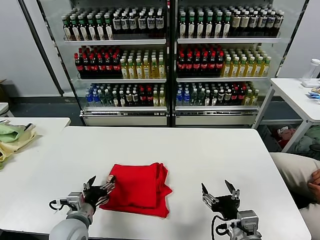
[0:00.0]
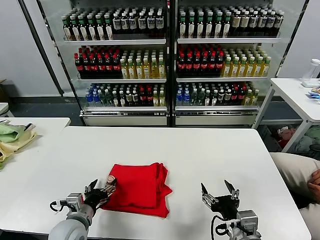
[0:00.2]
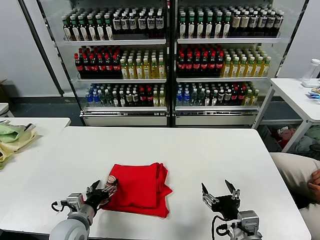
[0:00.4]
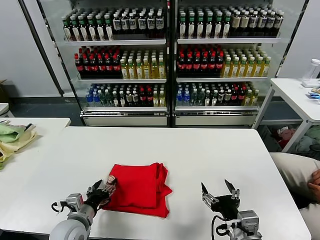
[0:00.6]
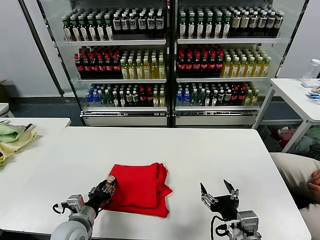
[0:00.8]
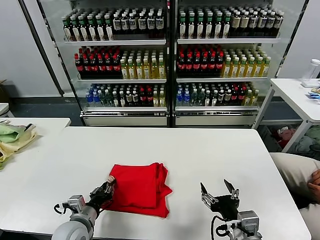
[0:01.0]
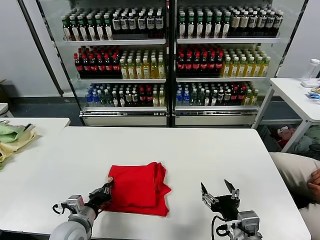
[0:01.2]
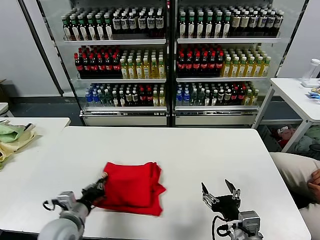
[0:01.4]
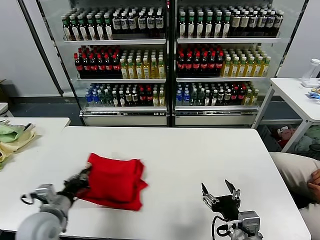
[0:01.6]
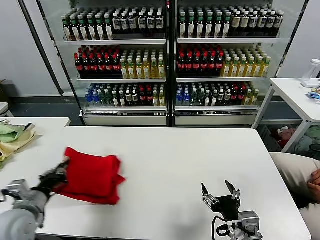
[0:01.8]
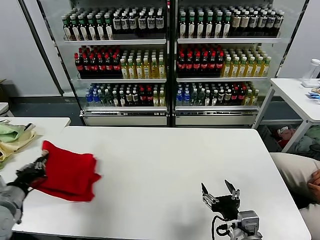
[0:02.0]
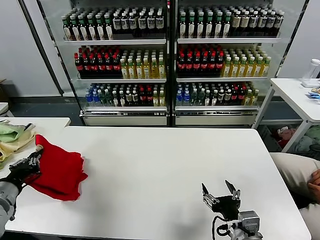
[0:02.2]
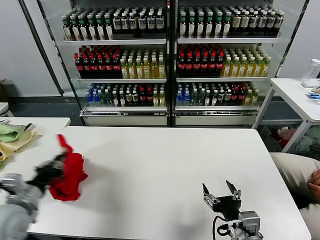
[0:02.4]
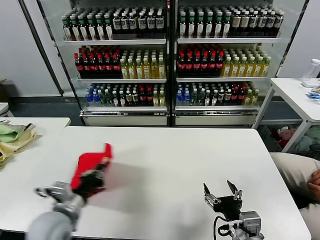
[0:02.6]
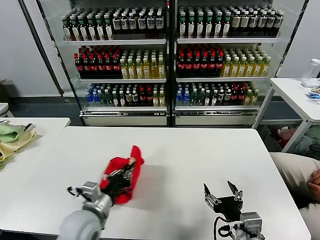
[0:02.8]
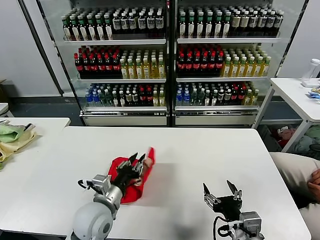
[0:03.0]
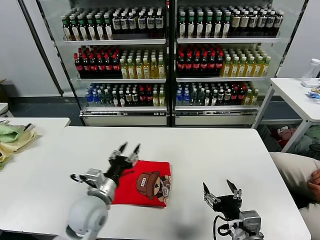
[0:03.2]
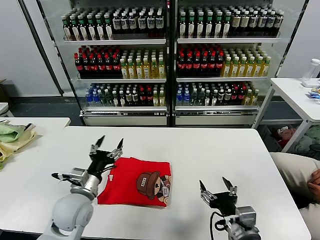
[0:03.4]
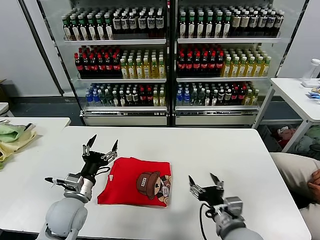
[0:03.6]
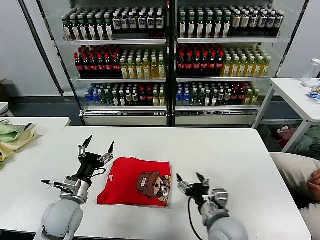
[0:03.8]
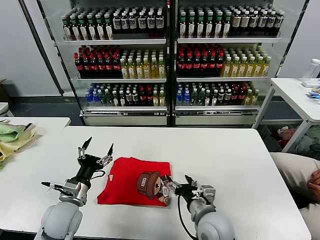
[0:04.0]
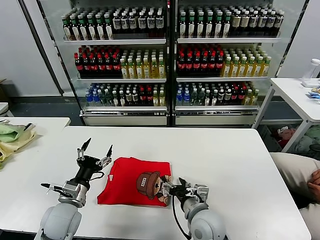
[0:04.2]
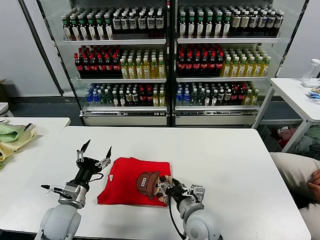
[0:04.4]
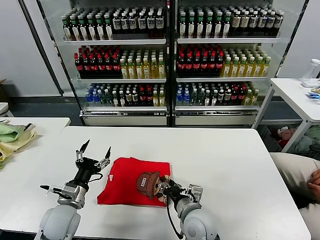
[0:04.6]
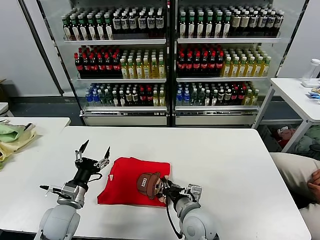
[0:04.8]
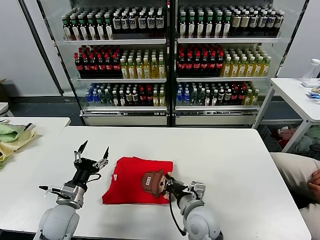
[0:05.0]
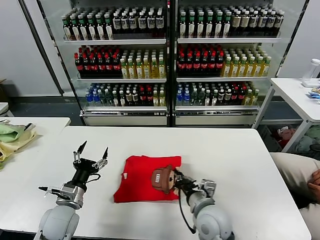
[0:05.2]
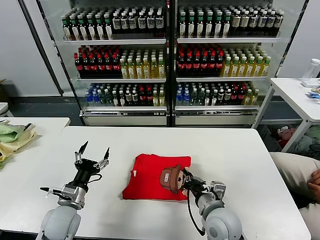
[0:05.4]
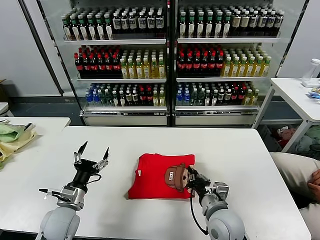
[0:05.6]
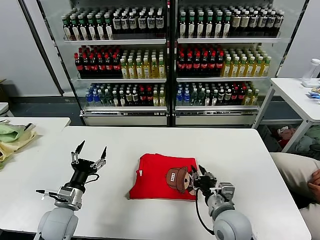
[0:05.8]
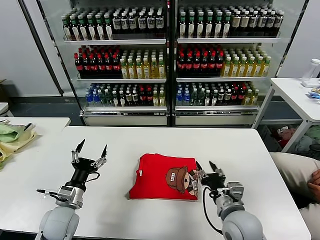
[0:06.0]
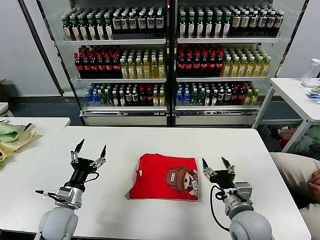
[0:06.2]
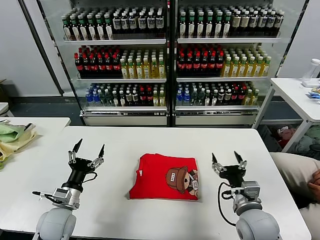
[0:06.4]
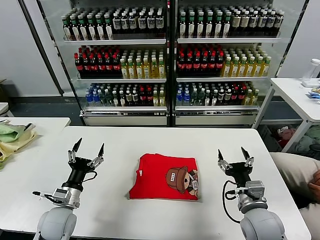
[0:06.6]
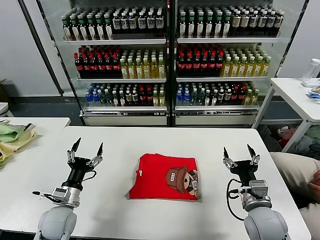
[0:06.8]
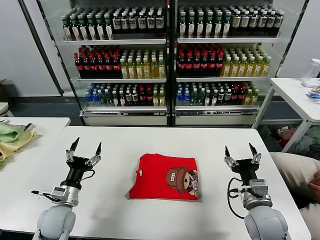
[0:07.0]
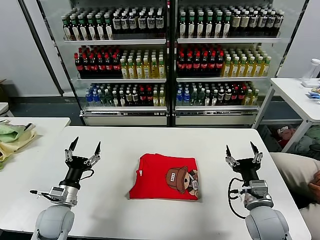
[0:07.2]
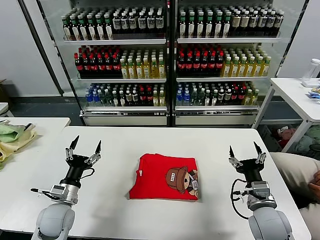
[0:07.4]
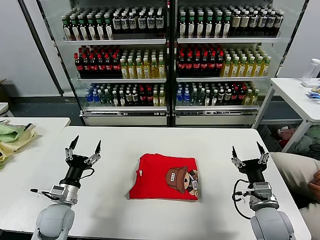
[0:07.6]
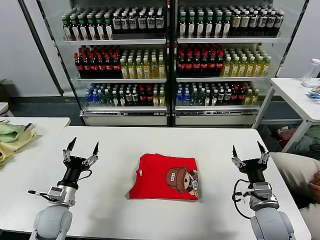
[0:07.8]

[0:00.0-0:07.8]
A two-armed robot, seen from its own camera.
Task of the whole recording: fold and organize the clothes.
Step, 0:00.0 to 0:03.0: Flip the folded clothes over with left gripper.
Step, 0:03.2 to 0:05.8: Drag the clothes to the center of the table.
0:00.0 to 0:01.6: The left gripper heads to the left, covering approximately 5 cm, and closes its fingers.
0:01.6 to 0:03.2: The left gripper travels to the right by some 10 cm, and opens.
0:03.2 to 0:04.6: The left gripper heads to the left, covering approximately 10 cm, and opens, while the right gripper travels forward, to the left and downward by approximately 15 cm, and closes its fingers.
0:04.6 to 0:06.2: The right gripper is displaced to the right by approximately 10 cm, and closes and opens again.
0:06.2 to 0:07.8: The right gripper is displaced to the right by roughly 5 cm.

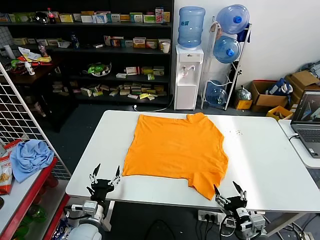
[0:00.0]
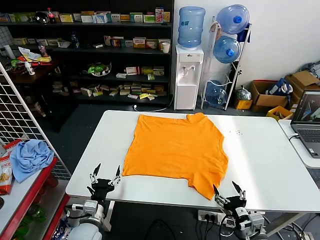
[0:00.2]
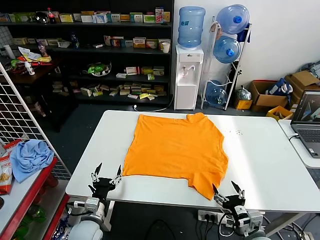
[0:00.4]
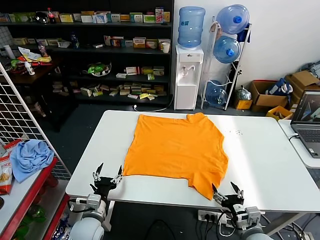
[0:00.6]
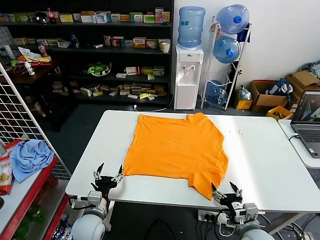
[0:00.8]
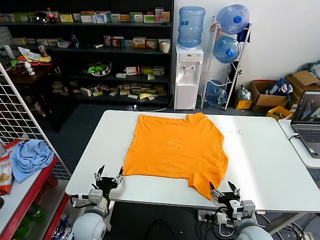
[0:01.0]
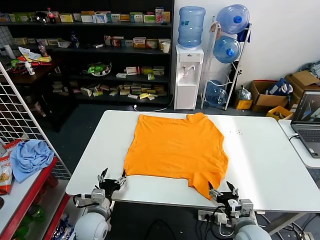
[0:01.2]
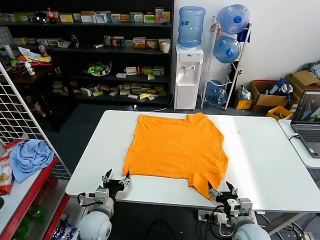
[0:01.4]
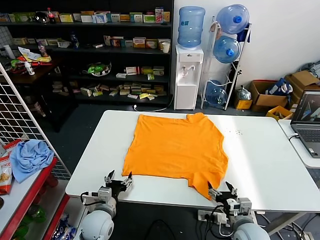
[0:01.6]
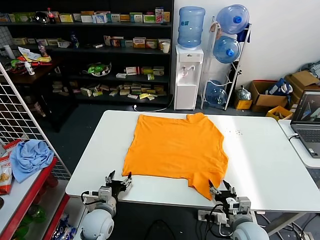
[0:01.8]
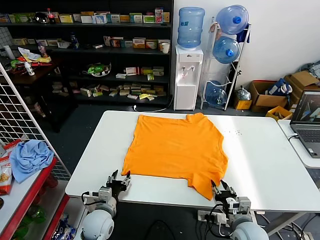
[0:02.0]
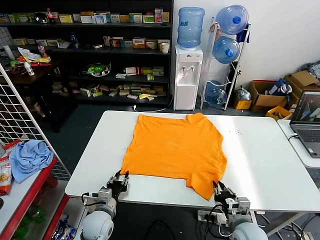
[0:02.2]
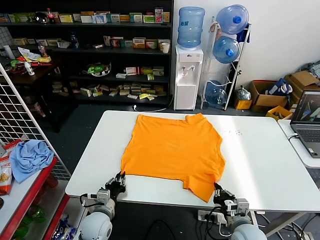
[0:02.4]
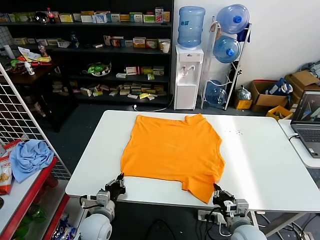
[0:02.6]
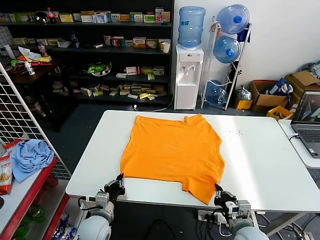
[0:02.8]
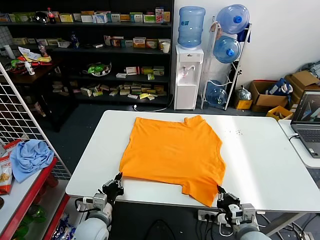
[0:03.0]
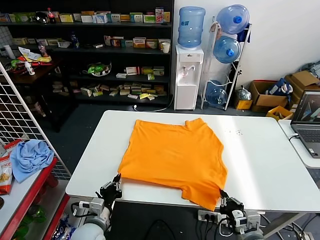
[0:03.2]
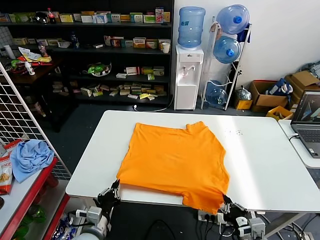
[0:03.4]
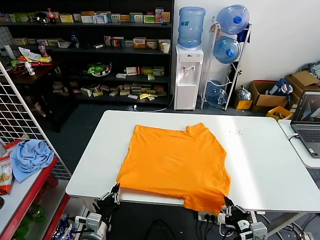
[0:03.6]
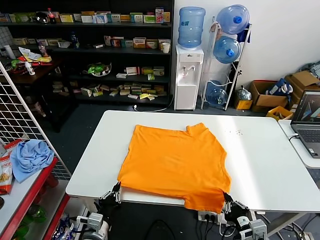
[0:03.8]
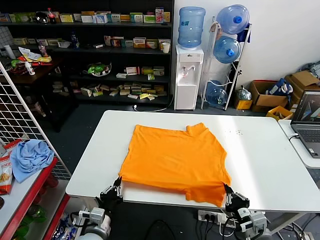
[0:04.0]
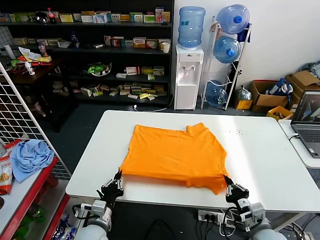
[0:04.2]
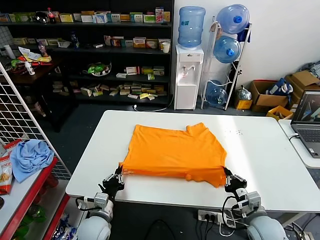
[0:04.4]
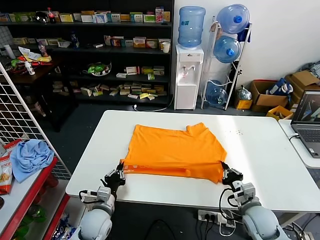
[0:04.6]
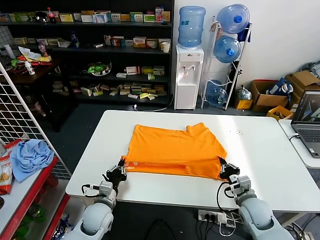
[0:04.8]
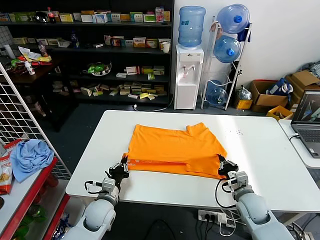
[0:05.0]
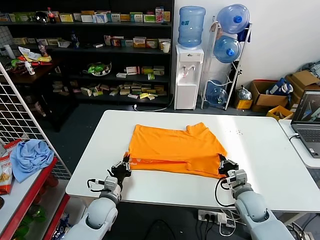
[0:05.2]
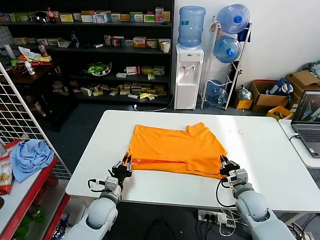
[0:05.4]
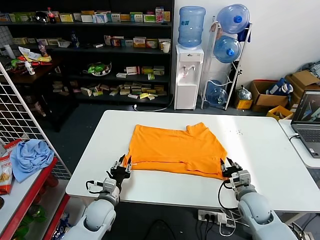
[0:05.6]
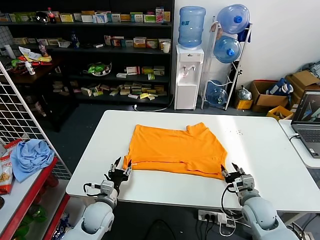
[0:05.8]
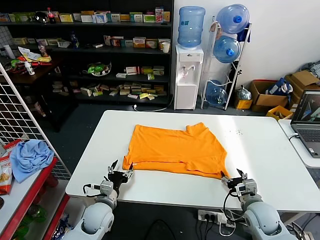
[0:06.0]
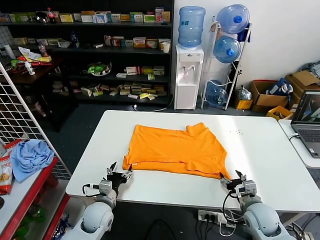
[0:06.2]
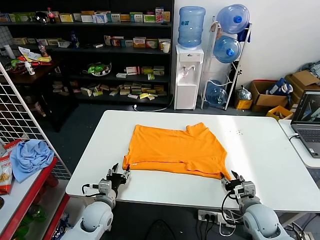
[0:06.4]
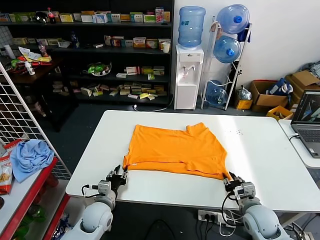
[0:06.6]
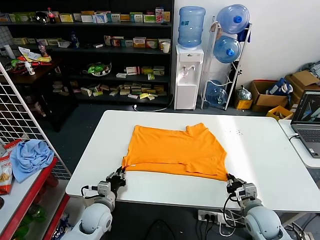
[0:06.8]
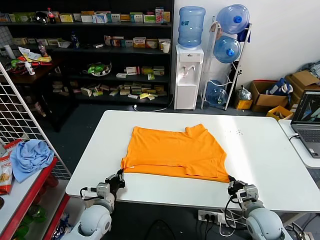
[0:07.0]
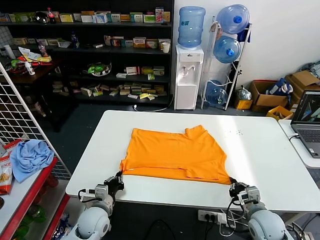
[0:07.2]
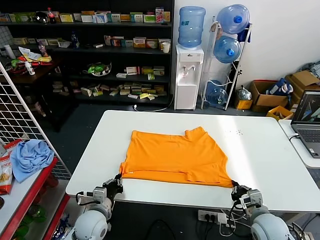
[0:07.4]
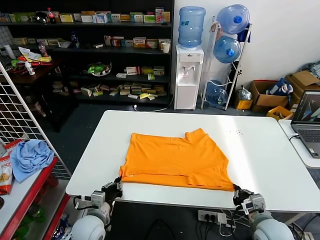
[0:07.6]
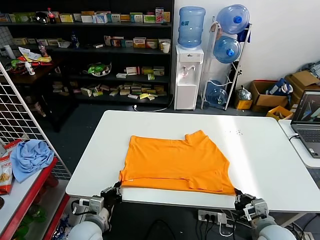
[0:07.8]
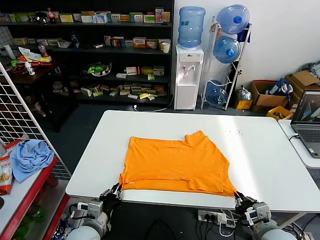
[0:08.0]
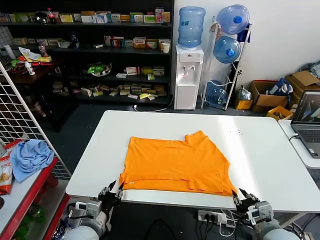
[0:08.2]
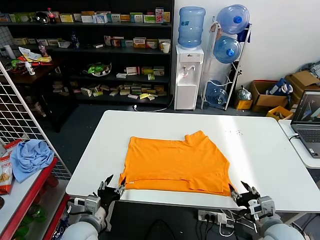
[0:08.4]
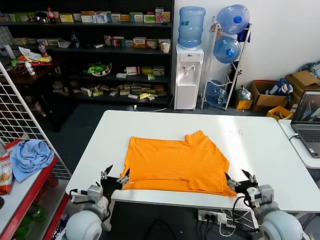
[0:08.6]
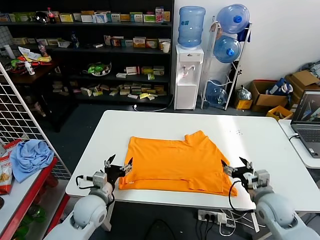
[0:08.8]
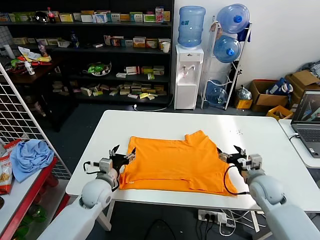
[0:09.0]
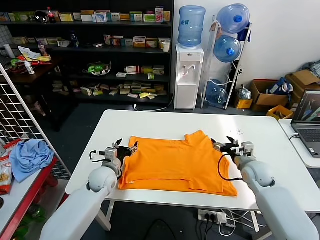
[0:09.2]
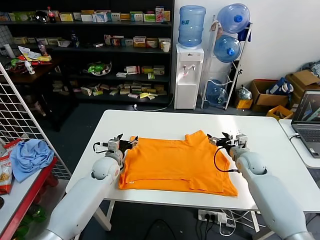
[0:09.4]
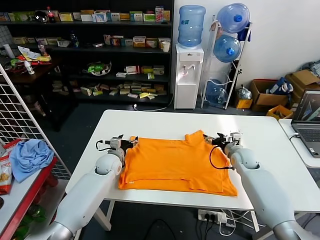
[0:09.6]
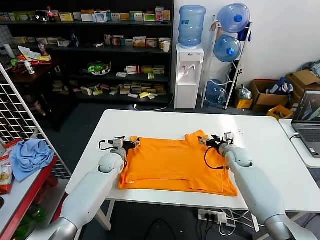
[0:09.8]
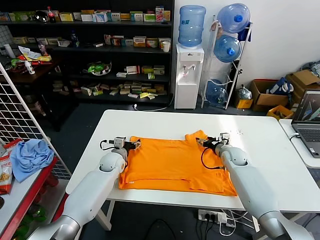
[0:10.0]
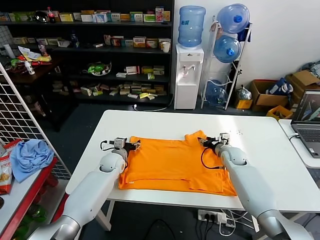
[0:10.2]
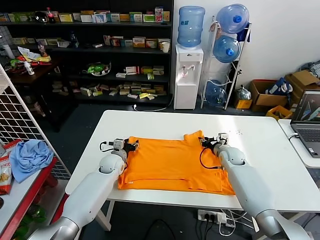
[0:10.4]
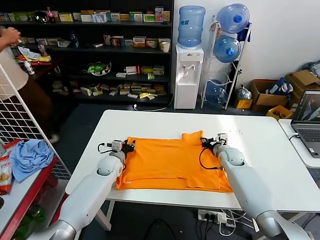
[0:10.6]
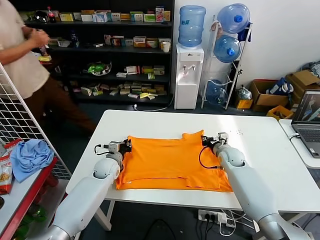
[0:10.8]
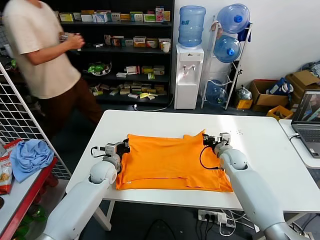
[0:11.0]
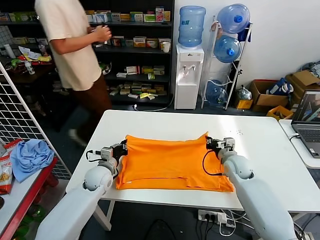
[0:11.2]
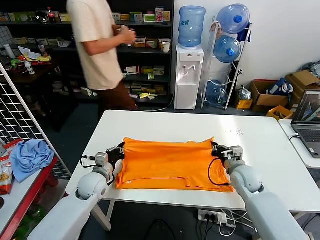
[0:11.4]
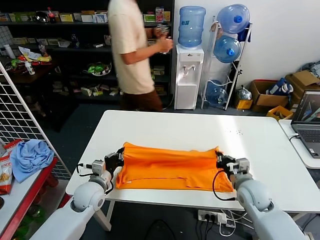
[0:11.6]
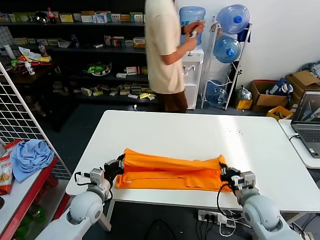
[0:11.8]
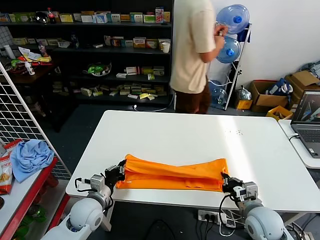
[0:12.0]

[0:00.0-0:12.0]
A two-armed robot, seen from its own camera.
Task of the whole recording: fold and organize the clothes.
Step, 0:00.0 to 0:02.6: use both grippers simultaneously to clamp the lower edge of the clothing fabric.
Step, 0:03.0 to 0:05.6: use both grippers to drag the lower edge of the fabric forward and fold it over the upper edge.
Step, 0:05.8 to 0:08.4: Drag the clothes downward with both gripper.
Step, 0:08.6 to 0:10.8: use both grippers simultaneously to clamp the upper edge of the clothing fabric.
0:01.6 to 0:03.0: The left gripper closes its fingers; the right gripper ends up about 5 cm from where it was, and closes its fingers.
0:03.0 to 0:04.4: The right gripper is displaced forward by approximately 5 cm.
0:04.4 to 0:06.0: The right gripper opens, while the left gripper goes approximately 5 cm forward, and opens.
0:06.0 to 0:07.6: The right gripper moves backward, roughly 5 cm, and closes up; the left gripper moves some 5 cm, and closes its fingers.
0:07.6 to 0:09.0: The right gripper moves forward, roughly 15 cm, and opens its fingers. Meanwhile the left gripper is displaced forward by roughly 10 cm, and opens.
0:09.0 to 0:10.4: Both grippers move forward, some 15 cm. The right gripper closes its fingers.
0:10.4 to 0:12.0: The two grippers go some 25 cm backward. The left gripper closes.

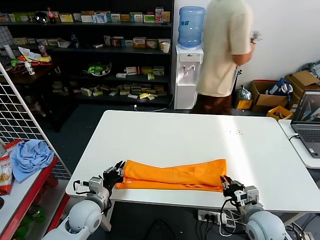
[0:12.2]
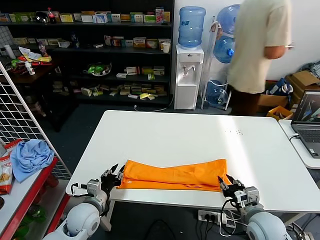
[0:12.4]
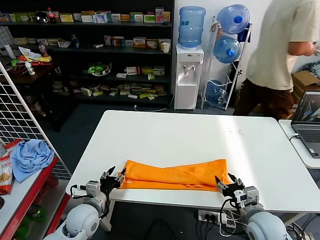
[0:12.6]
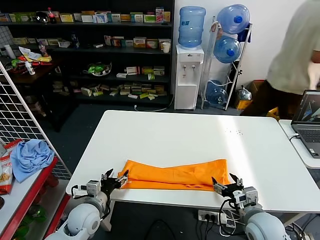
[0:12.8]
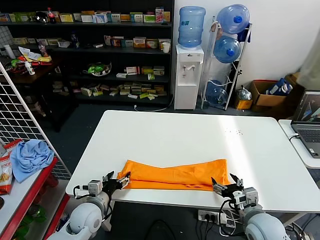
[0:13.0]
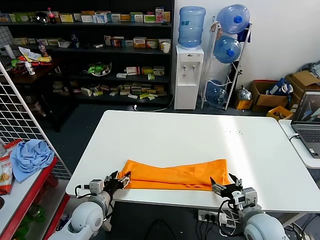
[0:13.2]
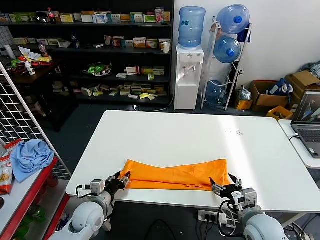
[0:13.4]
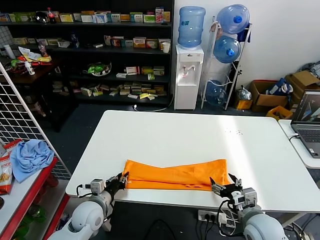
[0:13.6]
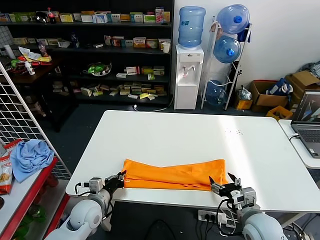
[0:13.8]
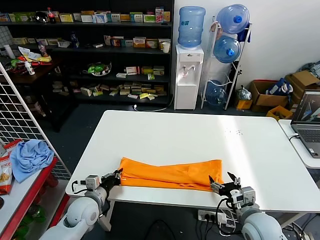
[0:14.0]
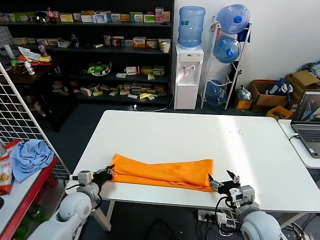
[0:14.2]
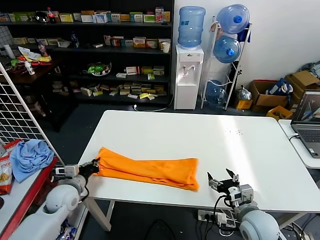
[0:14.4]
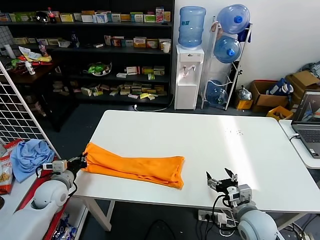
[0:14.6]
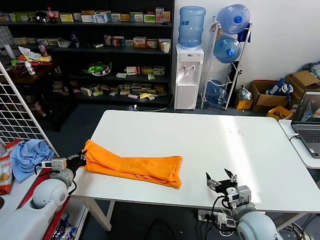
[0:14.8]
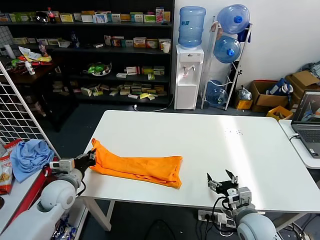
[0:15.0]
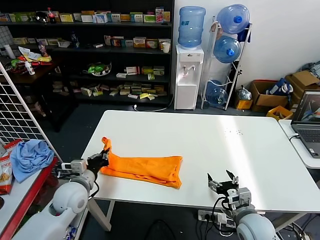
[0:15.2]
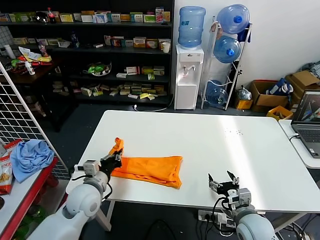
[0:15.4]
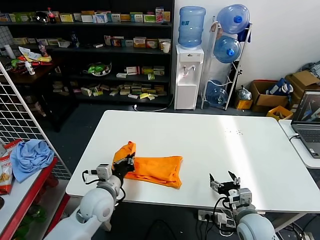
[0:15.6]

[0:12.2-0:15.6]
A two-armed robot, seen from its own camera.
Task of the whole recording: fold and organize the clothes.
Step, 0:12.8 to 0:13.8: use the left gripper to clamp the left edge of the fabric.
0:12.2 to 0:13.8: The right gripper opens, while the left gripper opens, then closes once more.
0:13.8 to 0:15.6: The left gripper moves upward, about 10 cm, and reaches approximately 10 cm to the left, then returns.
